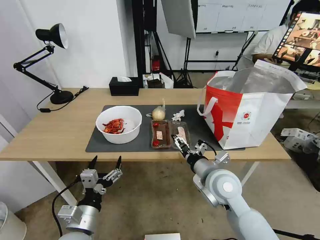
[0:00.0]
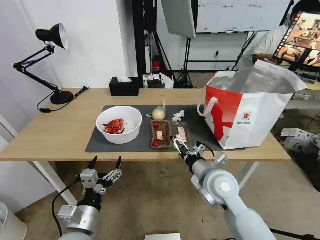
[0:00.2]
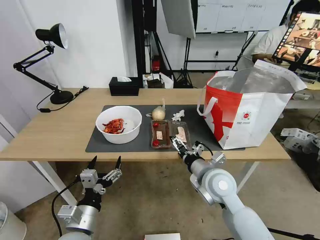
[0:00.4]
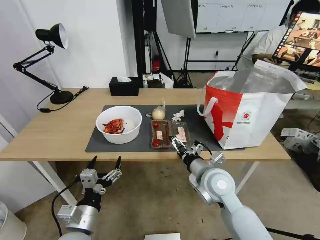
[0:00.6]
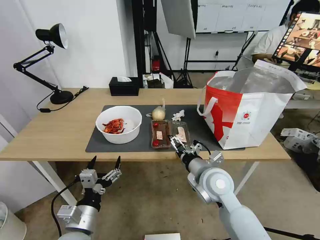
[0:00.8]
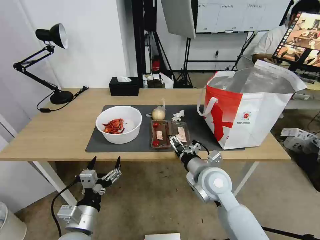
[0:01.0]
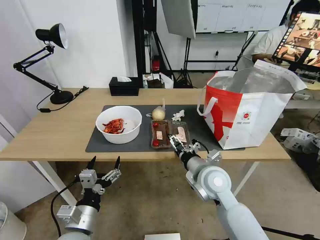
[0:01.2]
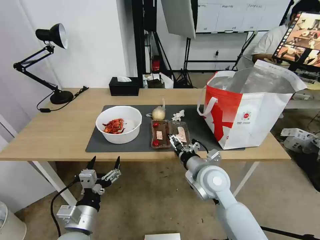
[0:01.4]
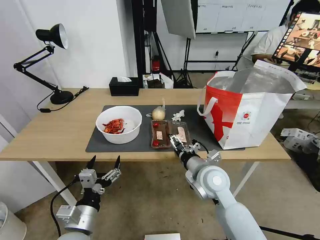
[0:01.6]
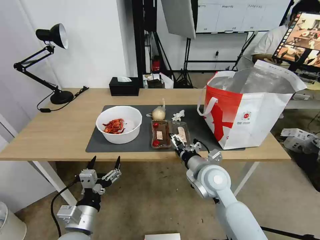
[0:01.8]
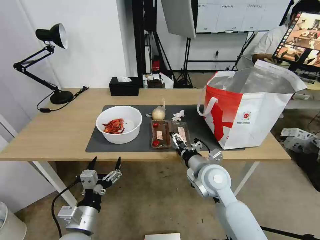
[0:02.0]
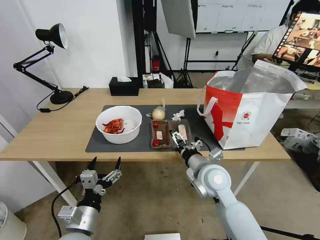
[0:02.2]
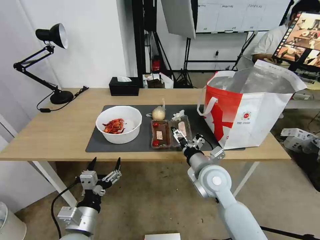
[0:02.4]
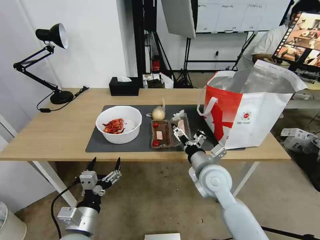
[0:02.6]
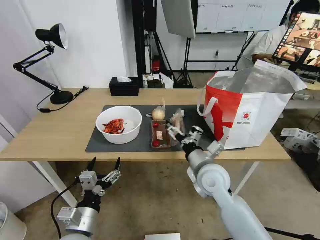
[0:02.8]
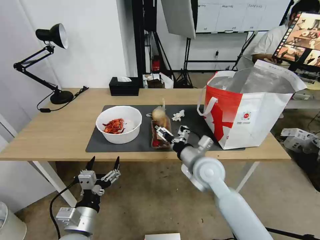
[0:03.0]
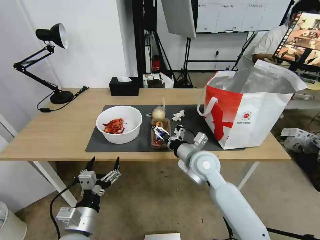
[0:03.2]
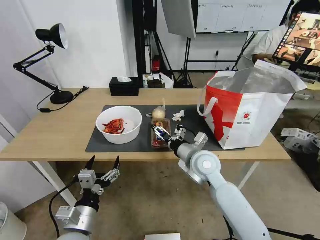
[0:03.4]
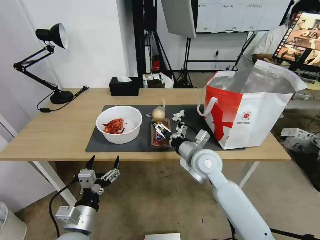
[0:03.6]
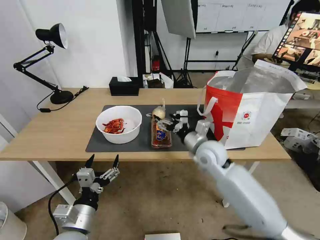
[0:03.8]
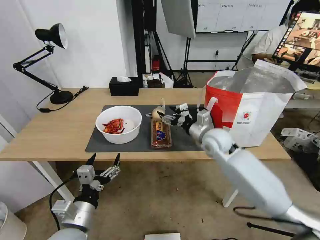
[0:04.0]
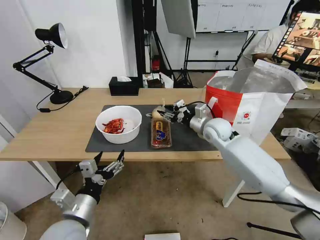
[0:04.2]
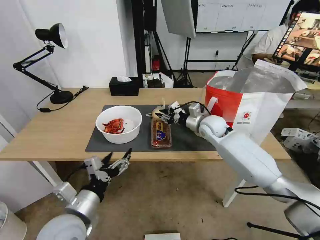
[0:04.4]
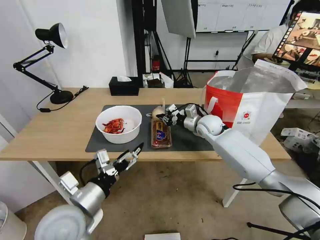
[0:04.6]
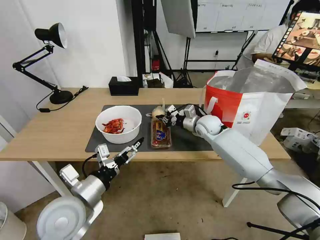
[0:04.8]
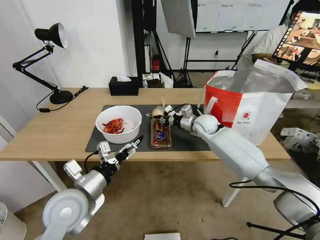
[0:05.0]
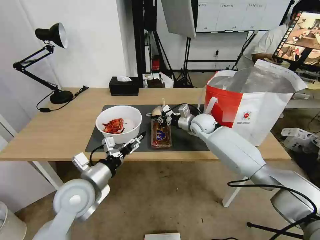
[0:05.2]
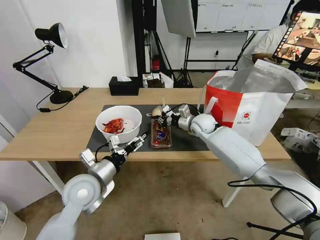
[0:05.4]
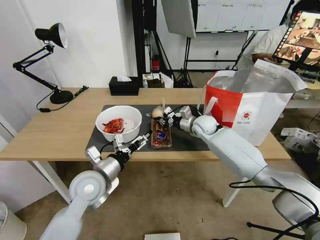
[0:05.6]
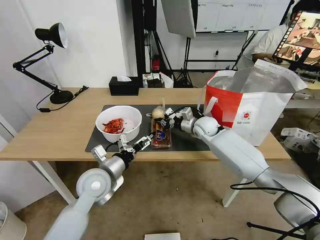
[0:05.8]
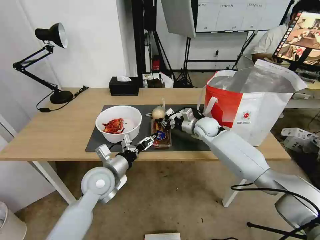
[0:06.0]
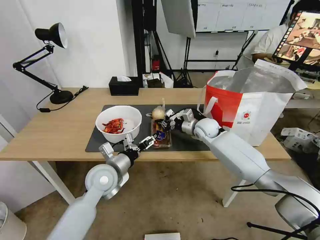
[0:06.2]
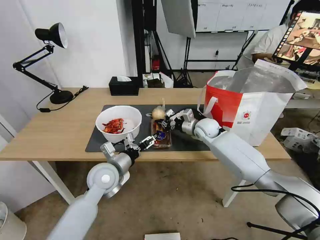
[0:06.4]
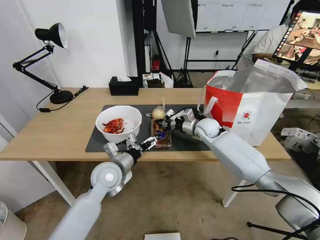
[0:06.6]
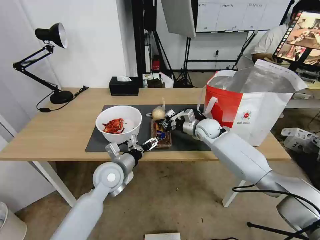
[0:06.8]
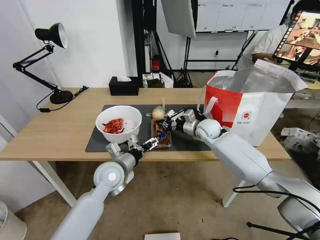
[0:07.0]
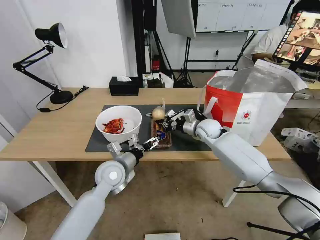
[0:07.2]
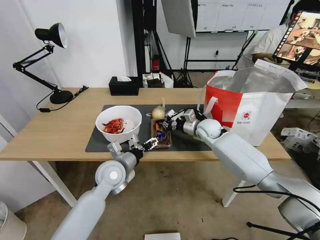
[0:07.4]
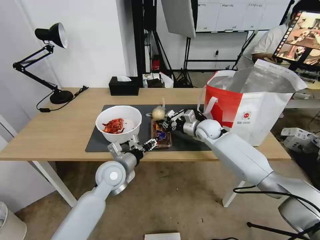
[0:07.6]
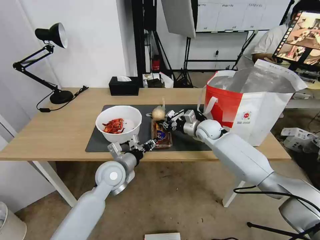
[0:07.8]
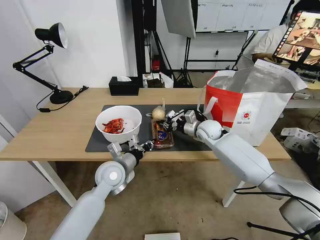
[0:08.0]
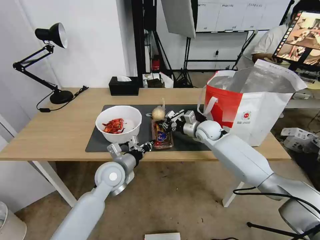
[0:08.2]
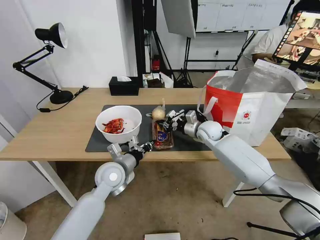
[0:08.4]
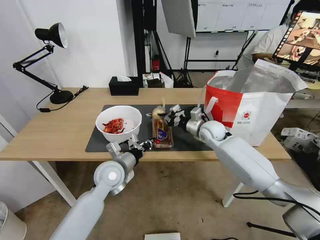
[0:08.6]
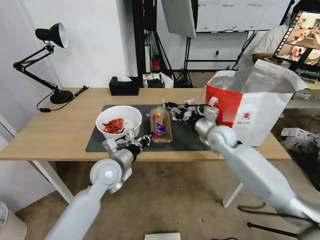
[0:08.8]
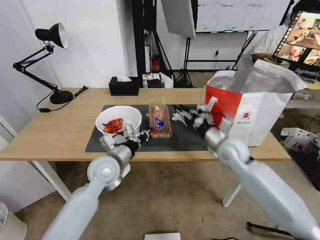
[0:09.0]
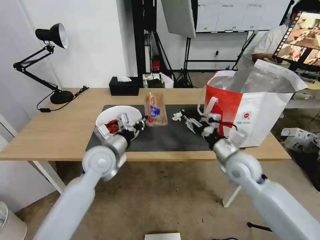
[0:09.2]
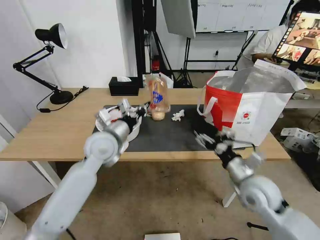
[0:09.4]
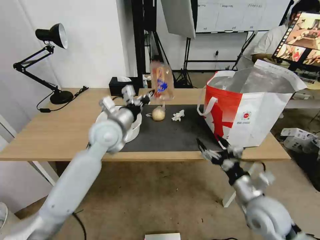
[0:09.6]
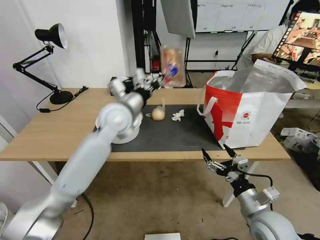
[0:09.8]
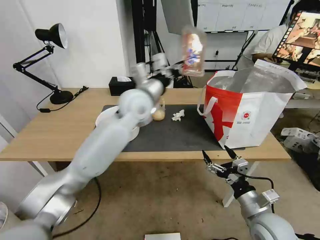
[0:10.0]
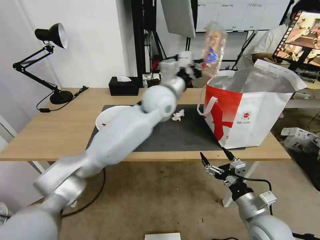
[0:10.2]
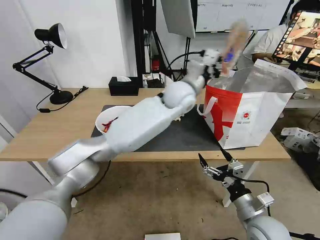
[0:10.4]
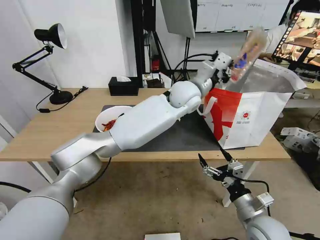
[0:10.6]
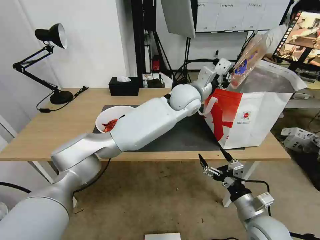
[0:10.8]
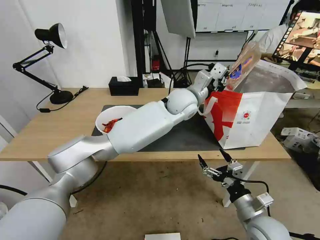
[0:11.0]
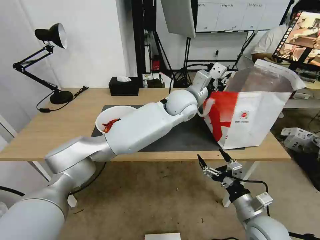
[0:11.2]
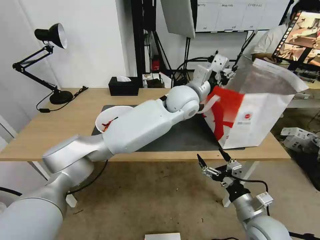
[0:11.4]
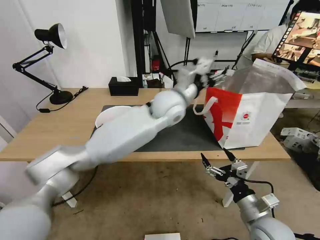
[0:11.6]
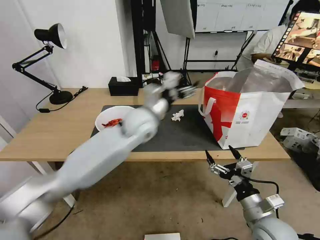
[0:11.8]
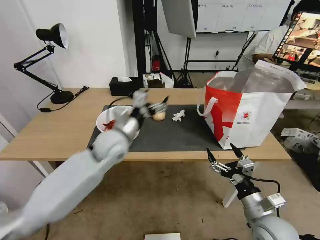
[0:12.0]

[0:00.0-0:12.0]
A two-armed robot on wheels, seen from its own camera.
Task of the whole recording: Pick up the trash from the table and place it into the takeout bag.
0:00.0 to 0:01.6: The grippers stay close to where they were, moving slightly.
0:03.0 to 0:04.4: The right gripper moves forward, roughly 20 cm, and closes its fingers, while the left gripper is displaced upward by approximately 5 cm.
0:04.4 to 0:06.0: The left gripper goes some 15 cm forward.
0:06.0 to 0:07.6: The left gripper closes its fingers.
0:07.6 to 0:09.0: The left gripper closes. Meanwhile the right gripper heads backward, covering roughly 15 cm, and opens up.
0:09.0 to 0:10.4: The right gripper moves backward, approximately 20 cm, and opens. The left gripper heads to the right, upward and forward, covering roughly 30 cm.
0:10.4 to 0:12.0: The left gripper heads to the left, backward and downward, covering roughly 25 cm, and opens its fingers.

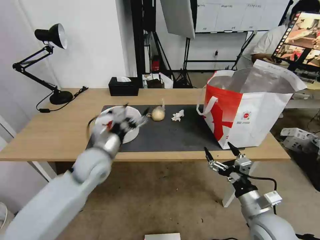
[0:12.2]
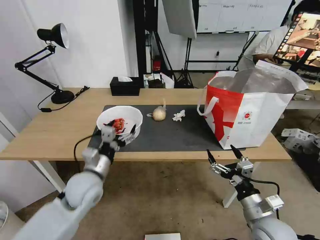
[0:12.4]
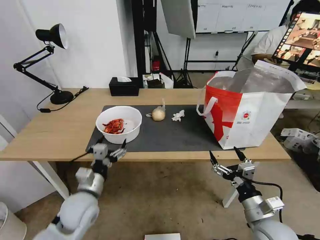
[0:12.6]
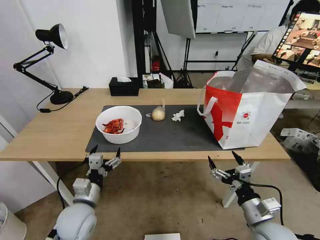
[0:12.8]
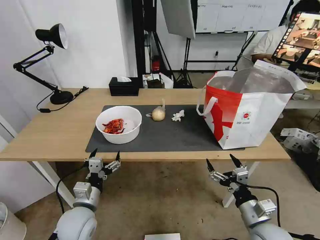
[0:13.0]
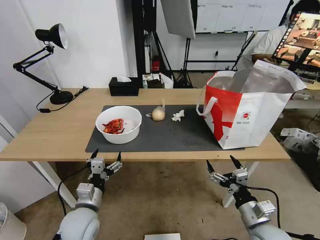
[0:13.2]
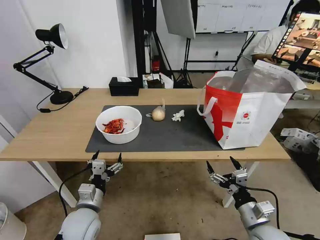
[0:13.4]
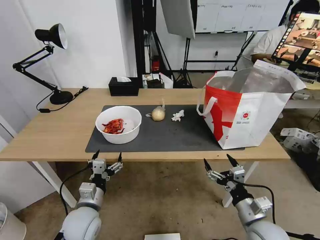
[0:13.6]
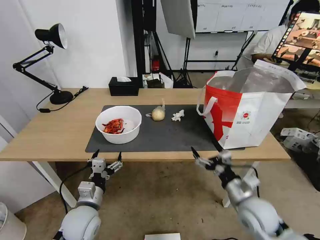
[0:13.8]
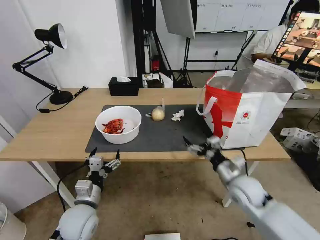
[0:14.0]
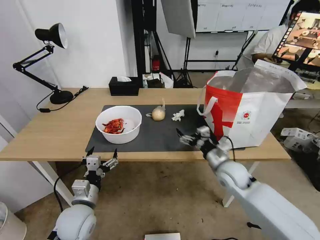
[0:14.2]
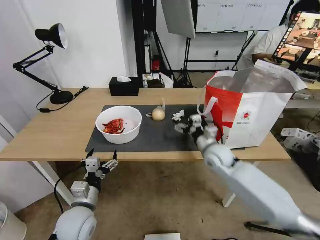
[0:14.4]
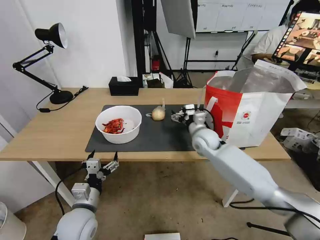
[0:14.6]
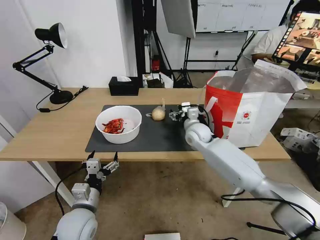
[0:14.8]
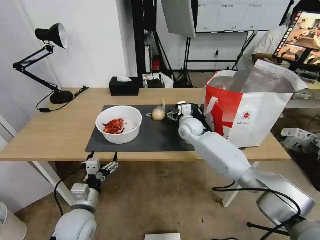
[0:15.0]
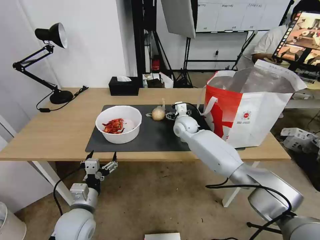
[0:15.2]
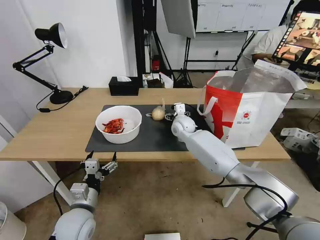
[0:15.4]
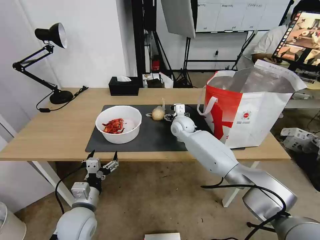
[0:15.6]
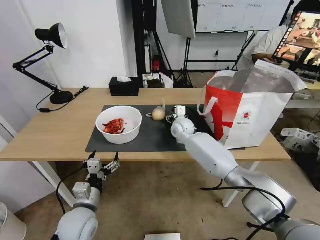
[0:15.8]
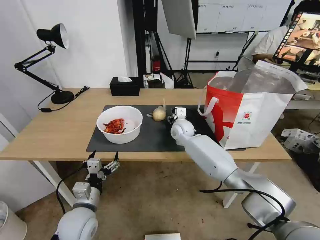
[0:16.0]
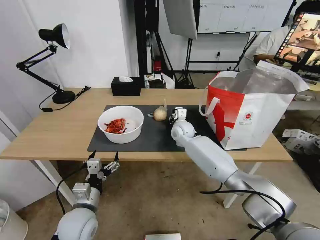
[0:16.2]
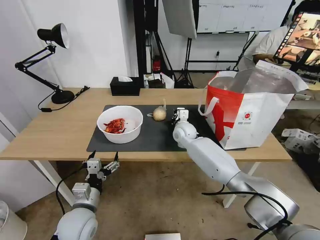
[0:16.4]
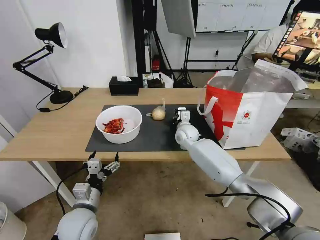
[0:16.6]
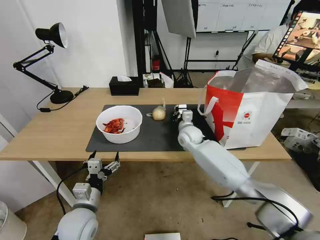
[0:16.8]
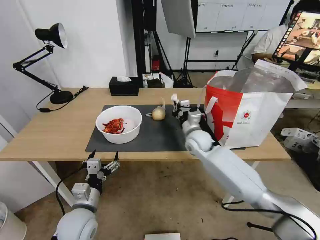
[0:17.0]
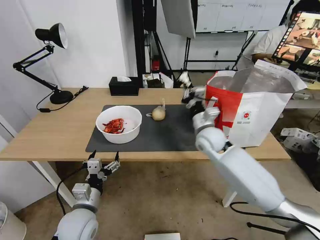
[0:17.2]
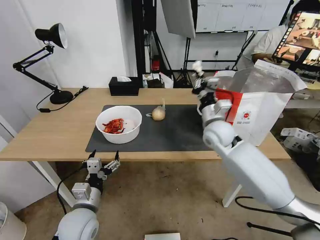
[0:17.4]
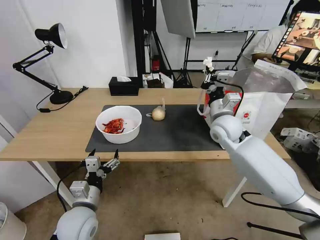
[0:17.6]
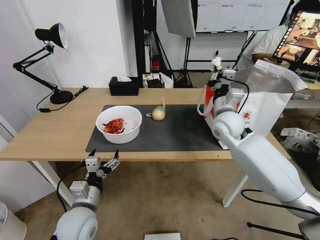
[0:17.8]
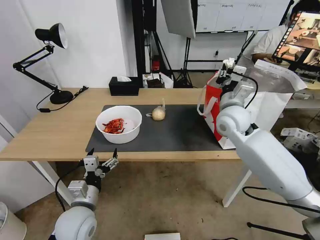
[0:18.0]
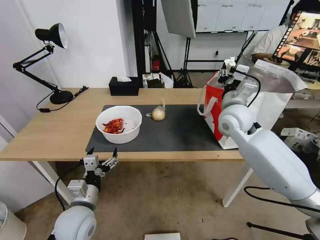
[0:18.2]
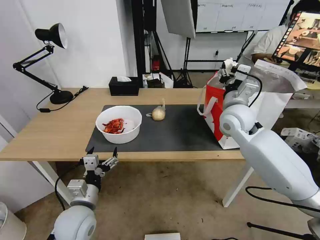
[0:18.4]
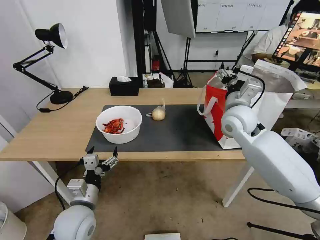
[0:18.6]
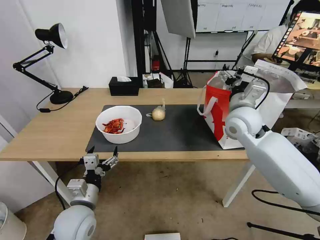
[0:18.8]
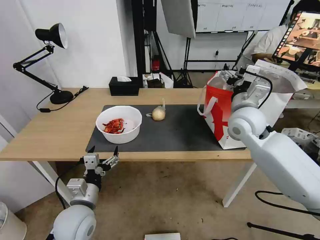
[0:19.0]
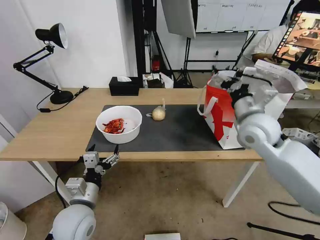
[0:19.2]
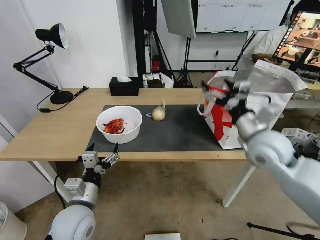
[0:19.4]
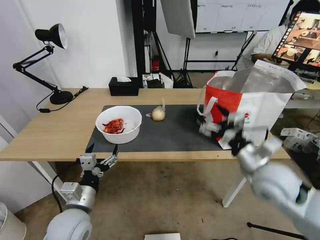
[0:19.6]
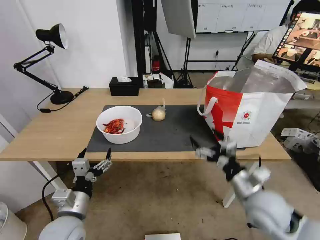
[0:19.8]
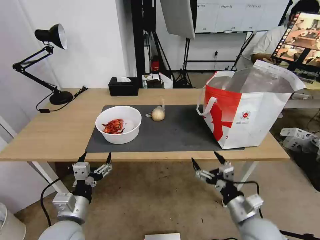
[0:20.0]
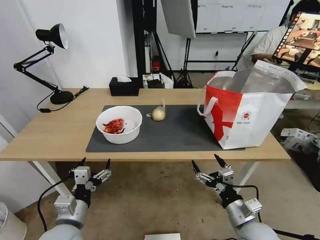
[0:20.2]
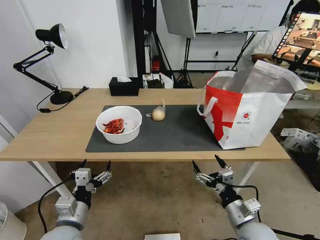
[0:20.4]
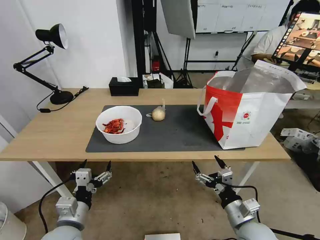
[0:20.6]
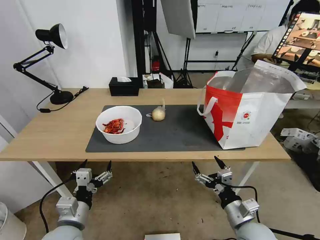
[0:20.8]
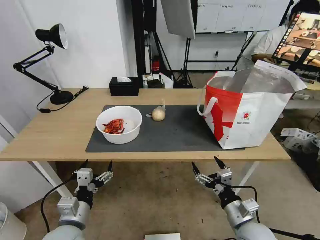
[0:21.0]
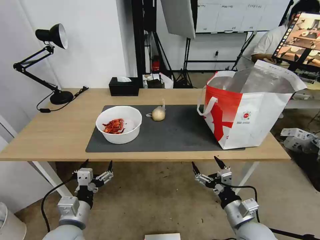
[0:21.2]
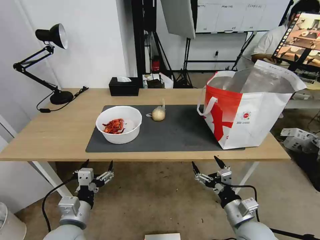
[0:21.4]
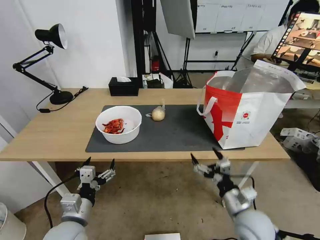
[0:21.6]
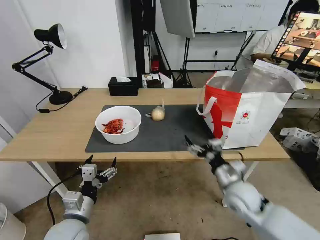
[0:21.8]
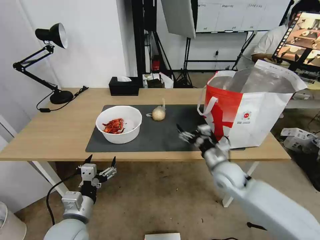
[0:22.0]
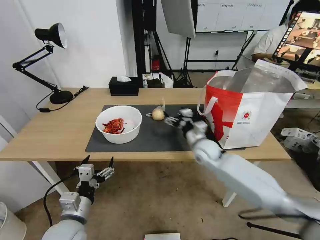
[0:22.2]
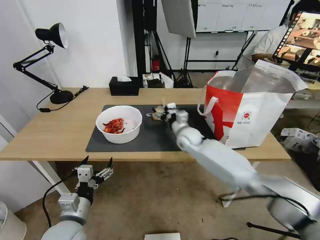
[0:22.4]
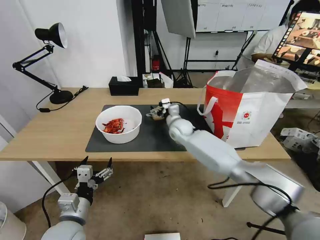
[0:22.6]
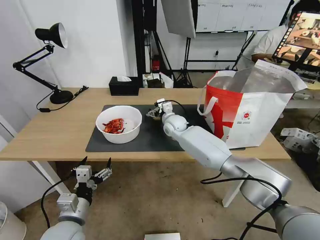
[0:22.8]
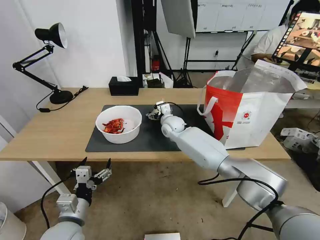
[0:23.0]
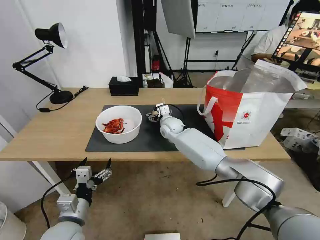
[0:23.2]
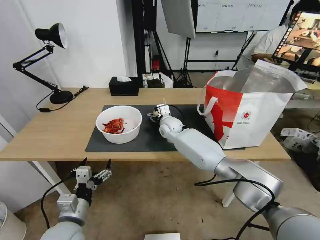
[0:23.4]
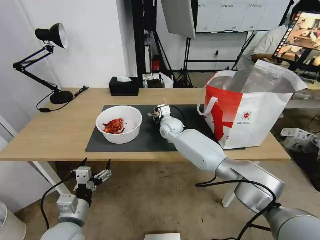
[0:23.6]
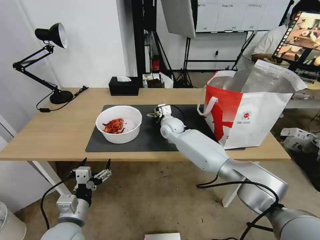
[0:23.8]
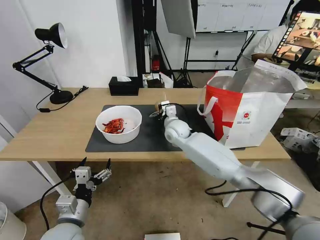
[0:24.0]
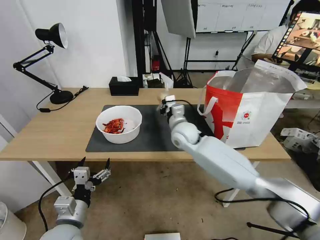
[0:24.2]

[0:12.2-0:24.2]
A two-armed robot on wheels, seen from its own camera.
Task of the whole recording: Pick up the trash from the table and place it into the takeout bag.
0:12.2 to 0:13.8: The left gripper shifts some 20 cm downward and backward.
0:13.8 to 0:15.2: The right gripper shifts about 35 cm forward and to the left.
0:15.2 to 0:16.6: The right gripper closes.
0:16.6 to 0:18.2: The right gripper heads upward, to the right and backward, covering some 20 cm, and opens.
0:18.2 to 0:19.8: The right gripper shifts about 25 cm backward and downward, and opens.
0:19.8 to 0:21.2: The right gripper is displaced downward and backward by approximately 10 cm.
0:21.2 to 0:22.6: The right gripper goes some 40 cm forward and to the left.
0:22.6 to 0:24.2: The right gripper goes approximately 10 cm backward and upward, and closes.
